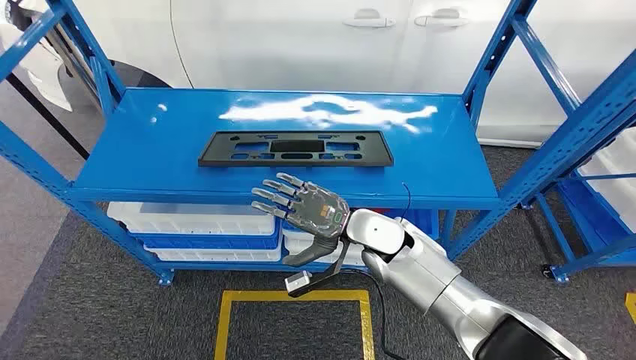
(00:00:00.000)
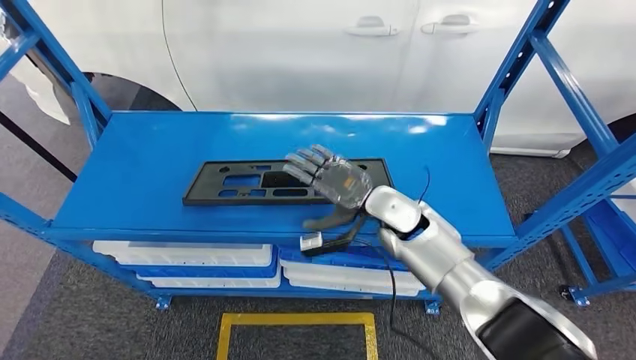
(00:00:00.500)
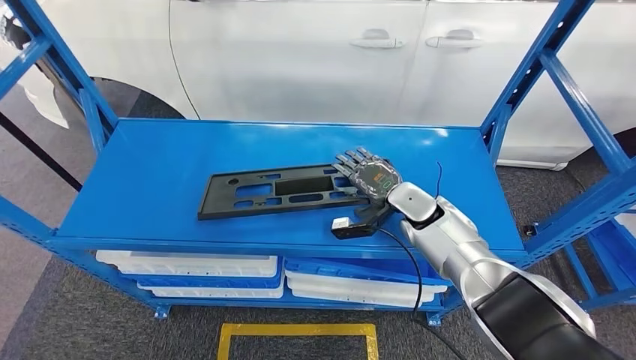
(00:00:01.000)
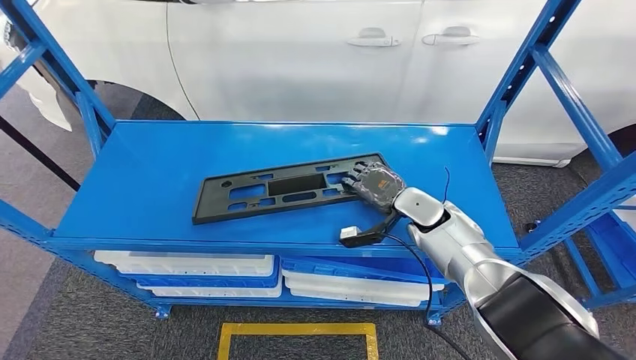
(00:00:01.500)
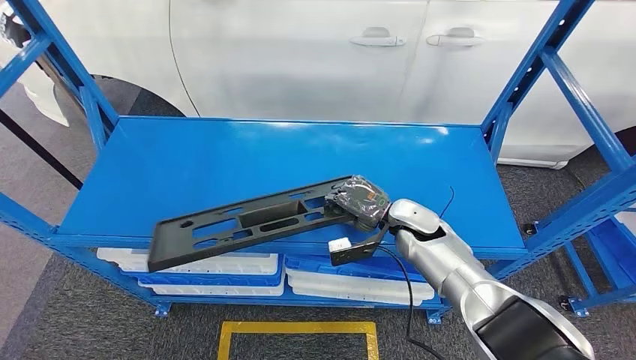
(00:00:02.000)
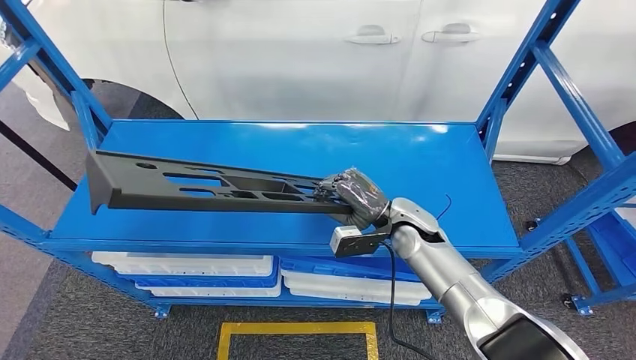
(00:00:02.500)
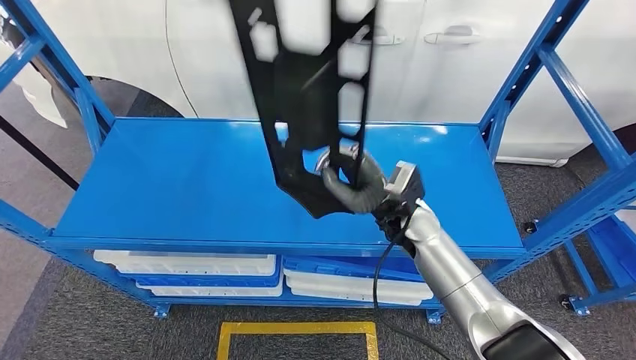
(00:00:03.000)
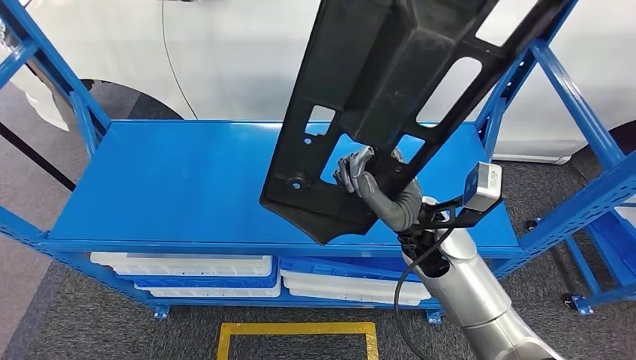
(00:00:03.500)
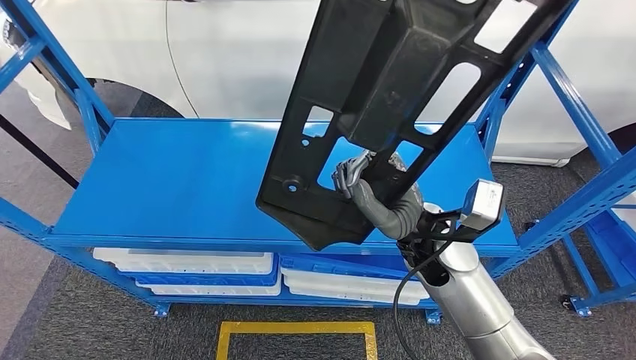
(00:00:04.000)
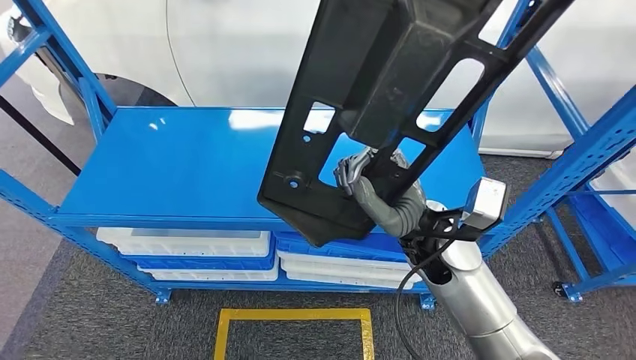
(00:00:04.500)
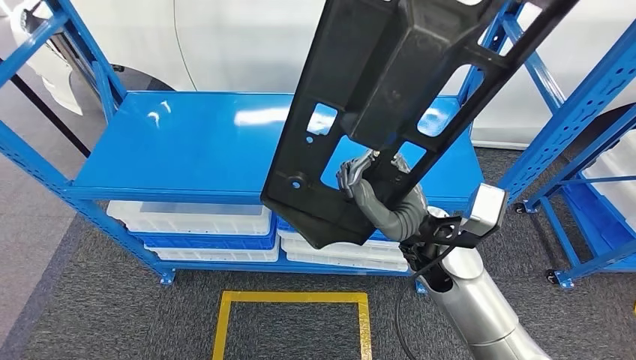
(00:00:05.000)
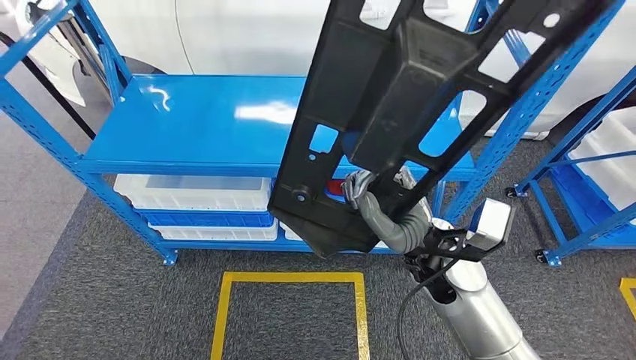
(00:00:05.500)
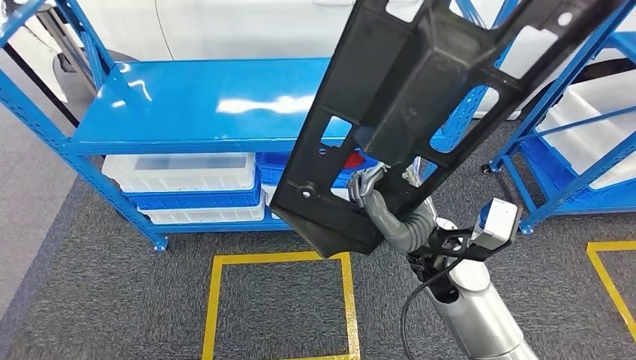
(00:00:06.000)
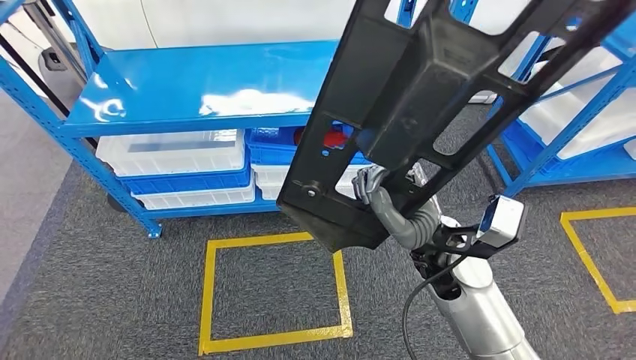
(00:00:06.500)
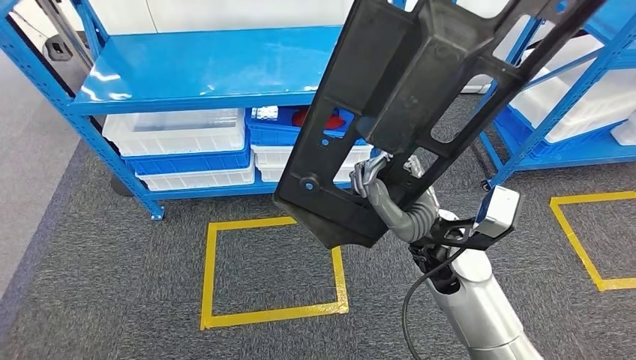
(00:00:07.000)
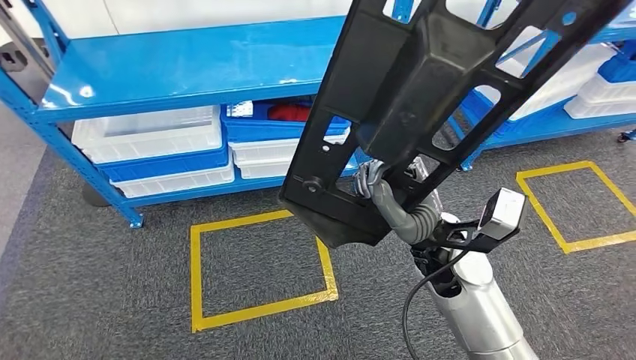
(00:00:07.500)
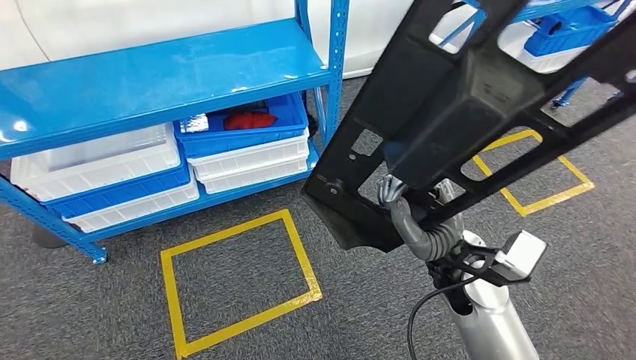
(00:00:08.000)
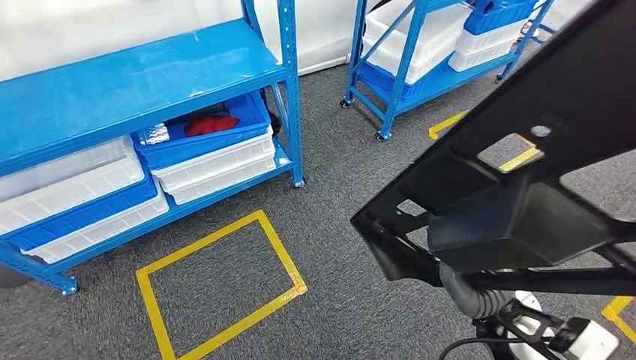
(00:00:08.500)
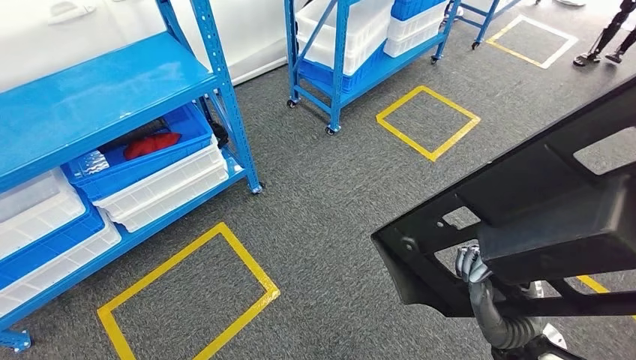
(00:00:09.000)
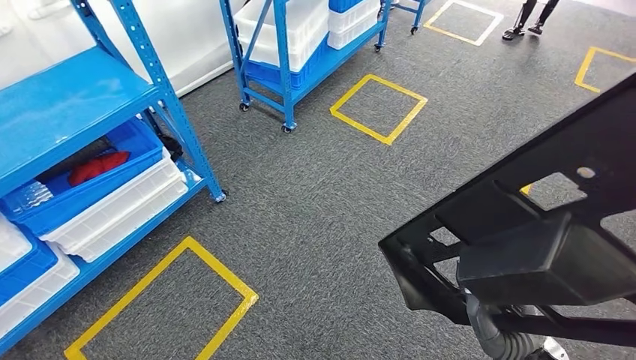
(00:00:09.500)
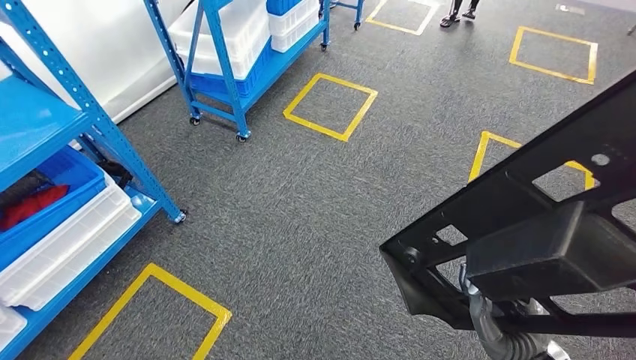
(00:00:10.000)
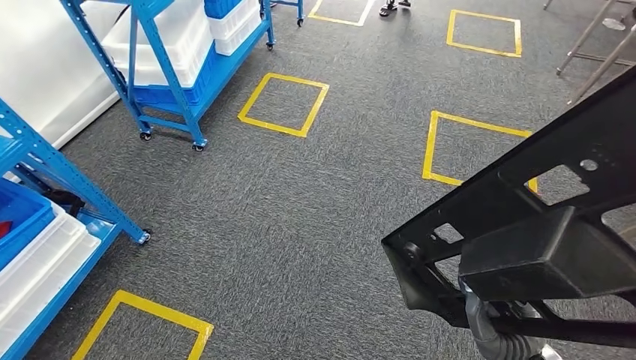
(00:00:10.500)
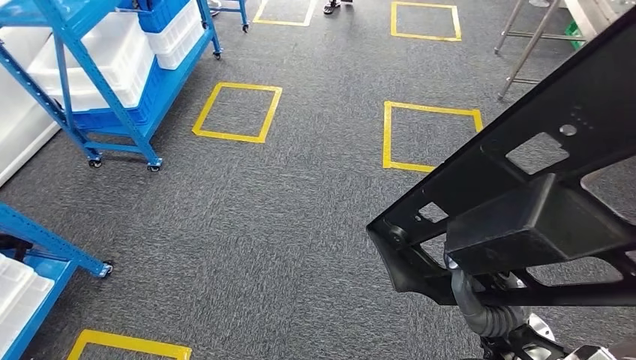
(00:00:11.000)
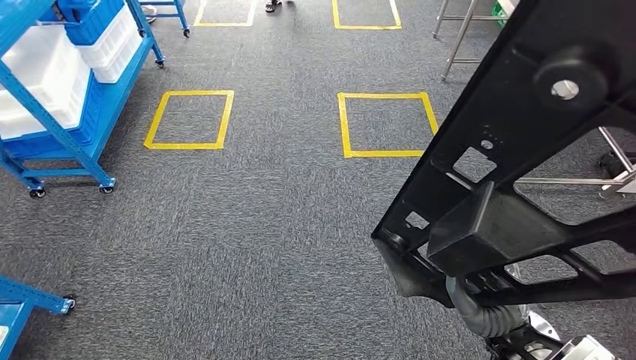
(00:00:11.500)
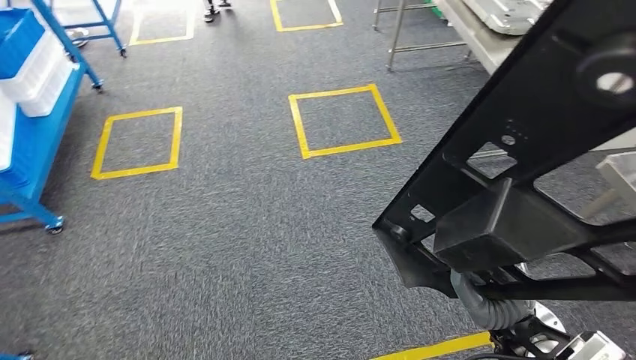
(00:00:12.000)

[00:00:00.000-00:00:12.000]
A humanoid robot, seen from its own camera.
Step, 00:00:00.000 to 00:00:04.000: Pick up the large material from the shelf.

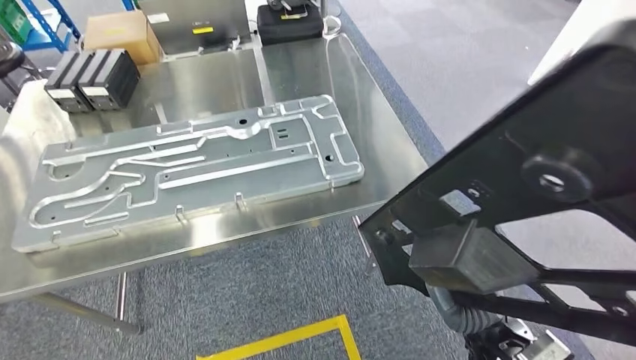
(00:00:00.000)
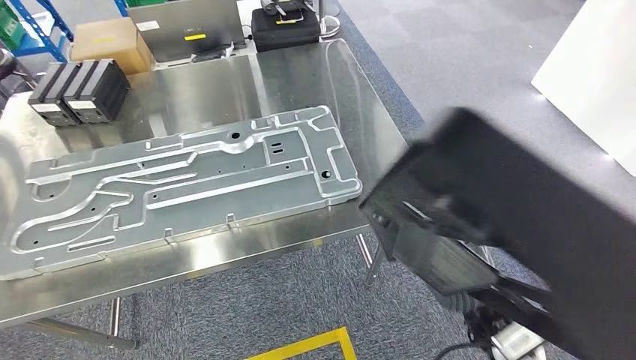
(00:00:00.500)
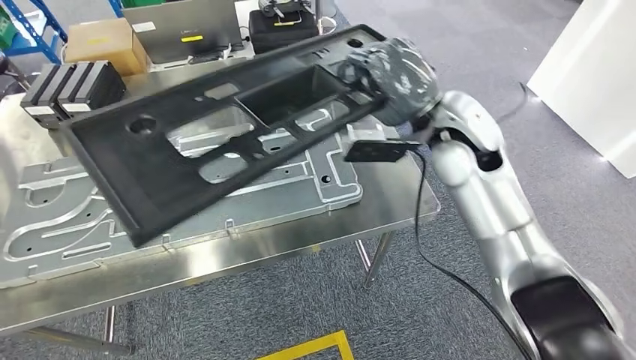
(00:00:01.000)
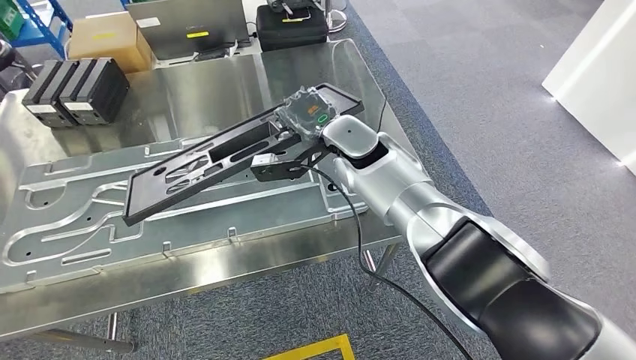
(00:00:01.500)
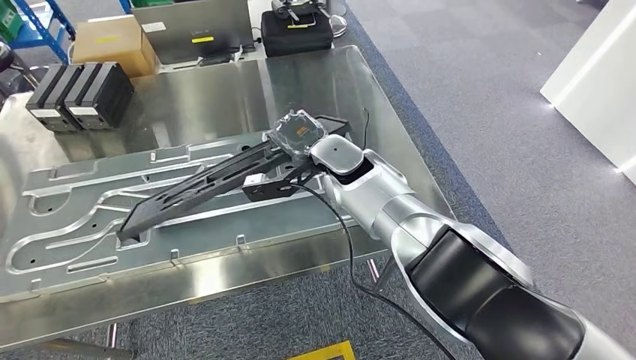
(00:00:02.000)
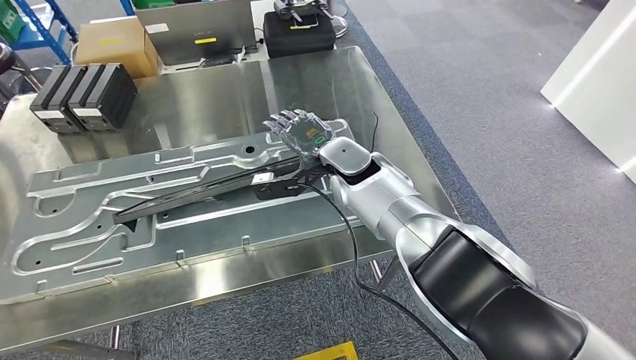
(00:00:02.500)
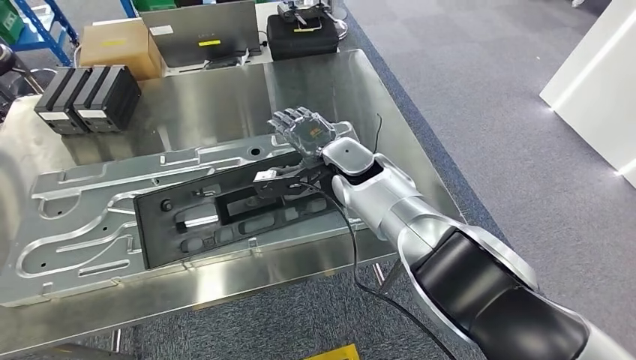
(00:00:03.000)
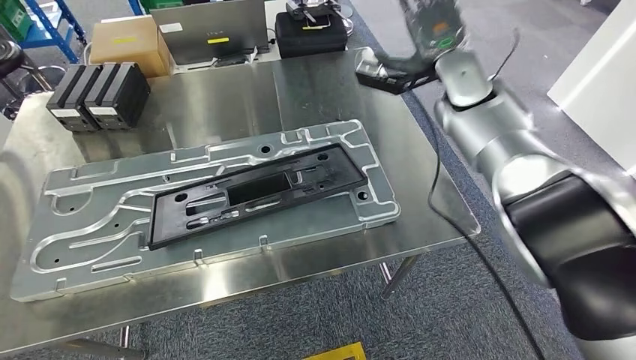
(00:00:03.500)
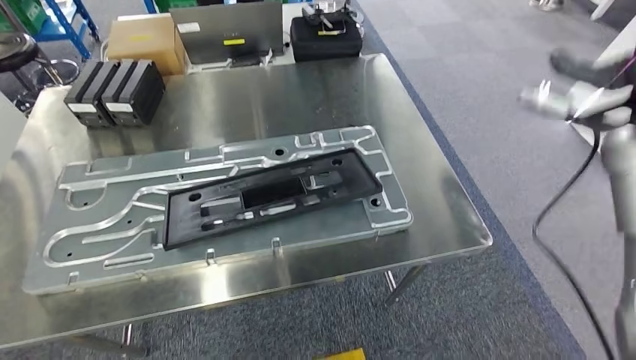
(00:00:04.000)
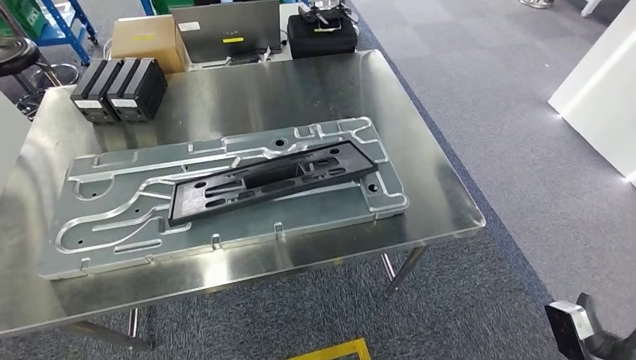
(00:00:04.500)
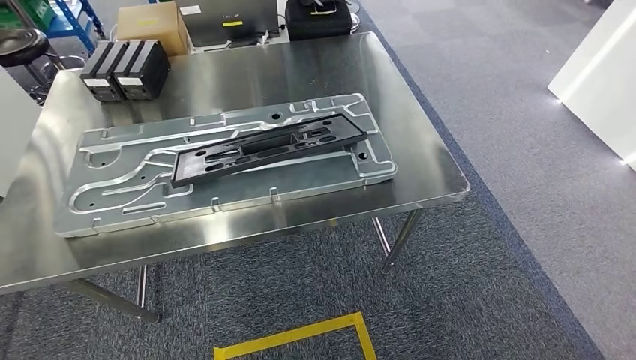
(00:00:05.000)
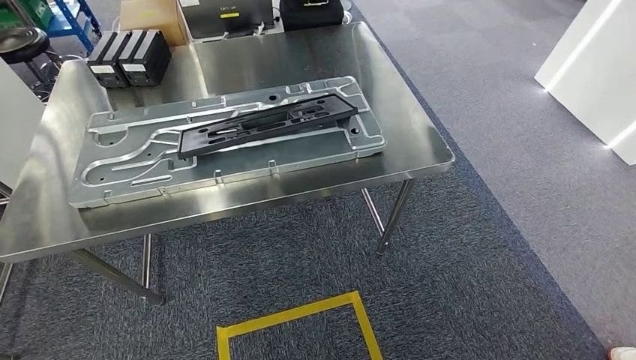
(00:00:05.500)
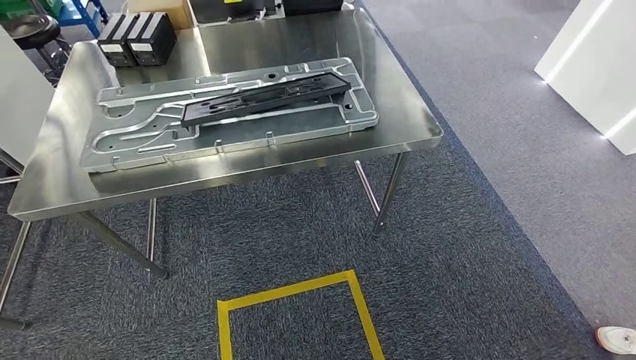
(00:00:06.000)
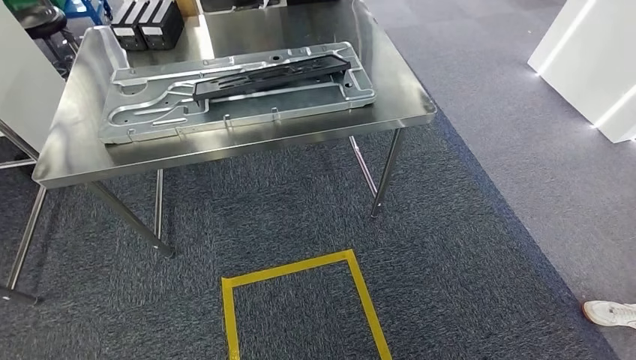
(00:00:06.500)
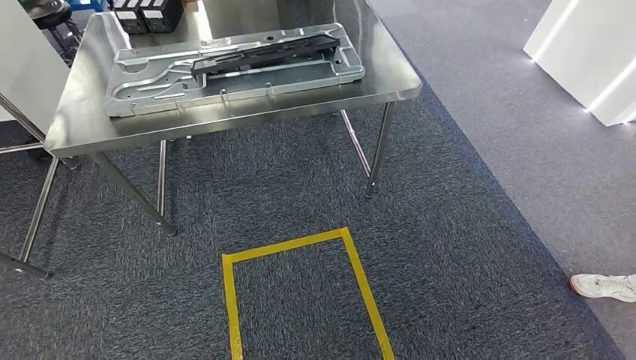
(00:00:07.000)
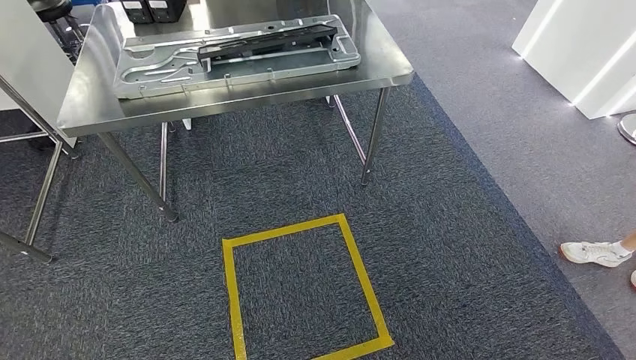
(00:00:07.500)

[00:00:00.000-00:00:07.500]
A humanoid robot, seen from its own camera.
Step, 00:00:01.000 to 00:00:03.000: Insert the large material into the corresponding slot on the workbench.
Step, 00:00:03.500 to 00:00:07.500: Move to the initial position of the shelf.
